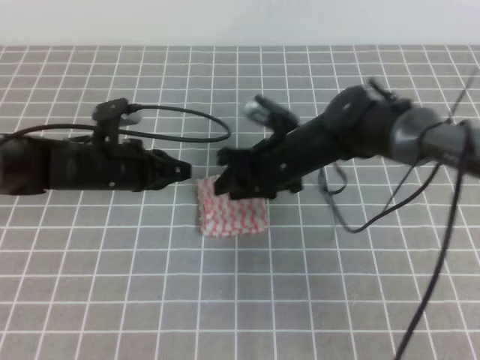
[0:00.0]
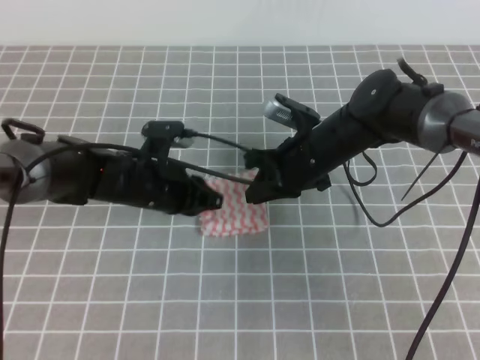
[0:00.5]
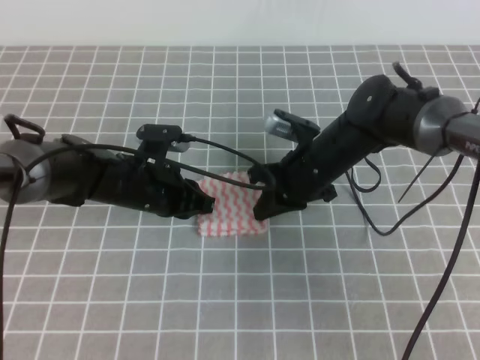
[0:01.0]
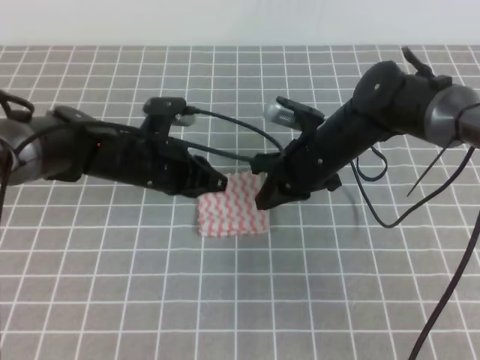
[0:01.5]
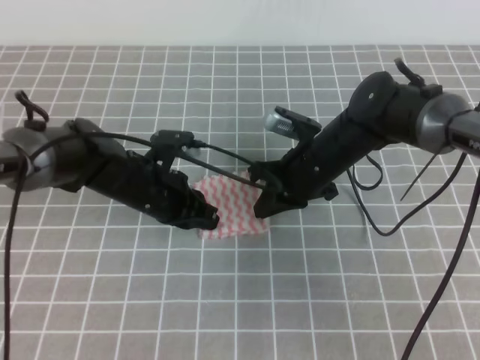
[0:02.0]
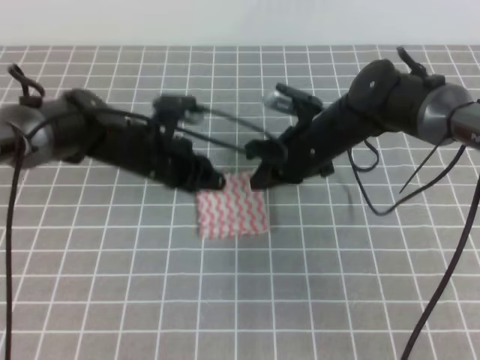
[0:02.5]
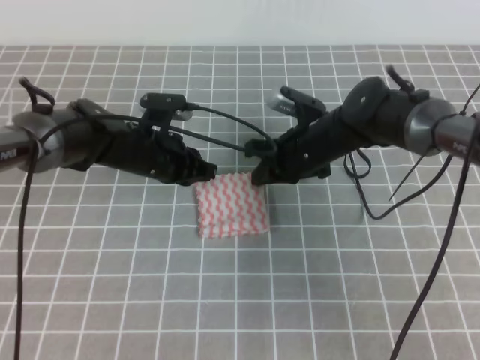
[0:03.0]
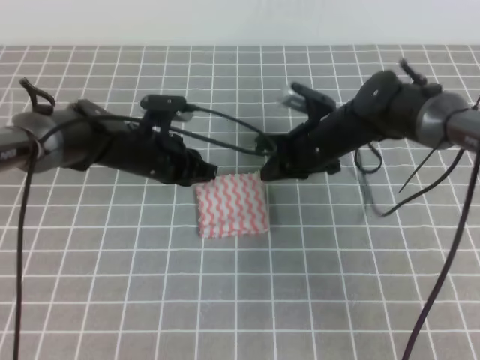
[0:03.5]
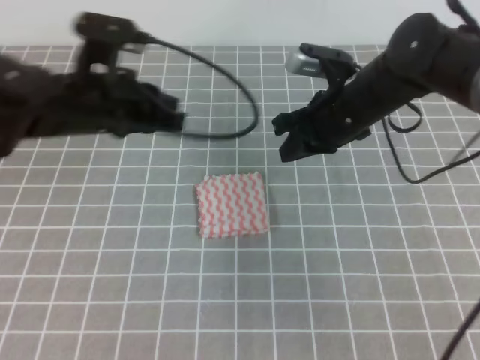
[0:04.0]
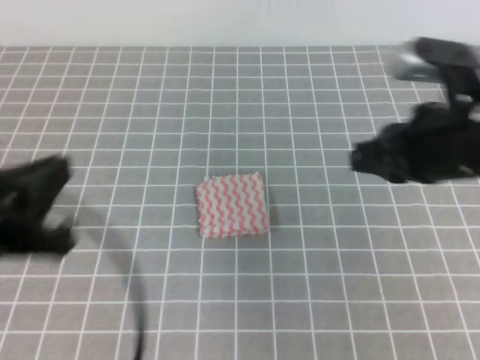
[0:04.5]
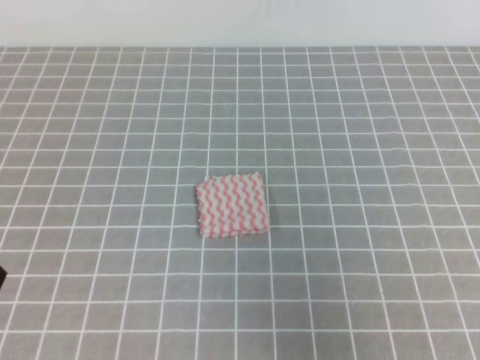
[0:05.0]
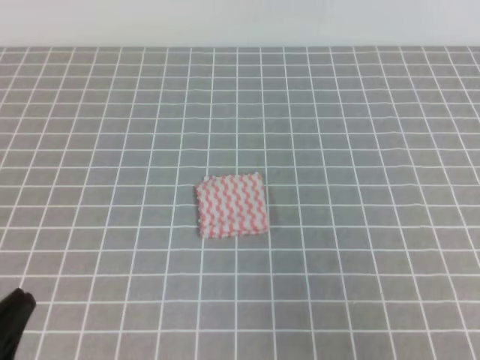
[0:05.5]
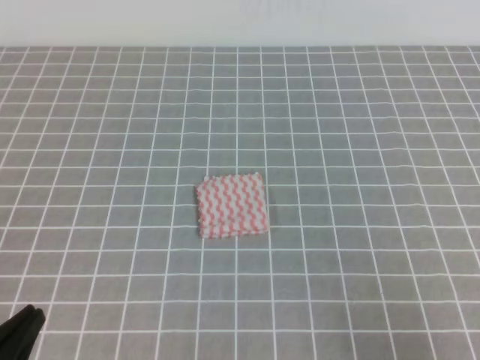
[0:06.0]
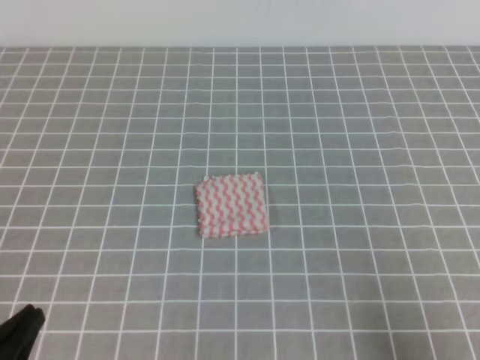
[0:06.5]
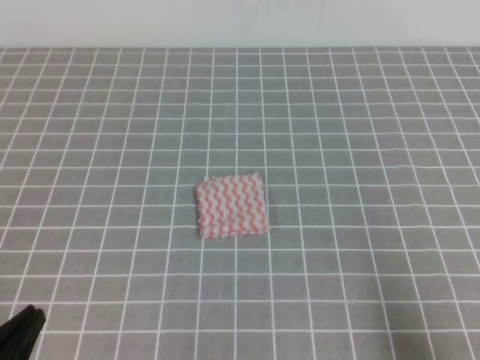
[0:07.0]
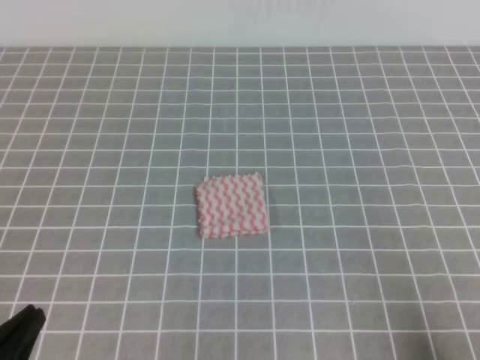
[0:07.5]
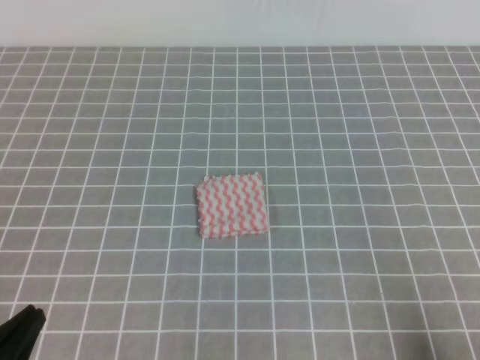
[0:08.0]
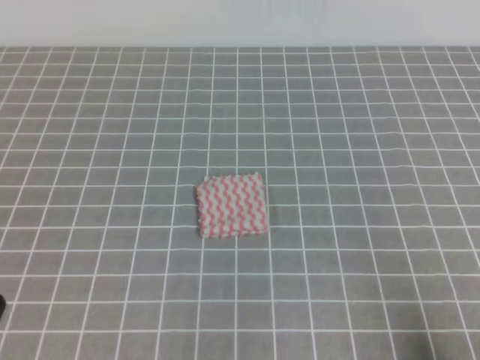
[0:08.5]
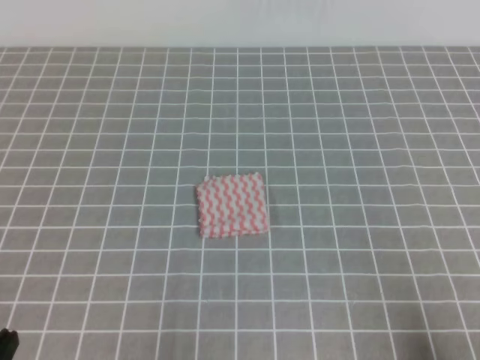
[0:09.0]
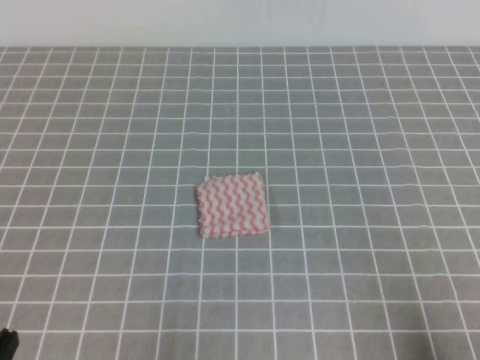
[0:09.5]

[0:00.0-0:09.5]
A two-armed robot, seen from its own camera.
Step, 0.0 to 9.5 s: Fold the towel.
0.0 to 2.0 s: The right gripper closes up. Meanwhile the left gripper changes place by approximately 5 cm.
2.0 to 4.0 s: The right gripper travels upward by roughly 10 cm. Meanwhile the left gripper travels upward by approximately 15 cm.
4.0 to 5.5 s: The right gripper heads backward and to the right, covering roughly 35 cm, while the left gripper is displaced backward by about 30 cm.
5.5 to 7.5 s: The right gripper heads downward, covering some 10 cm.

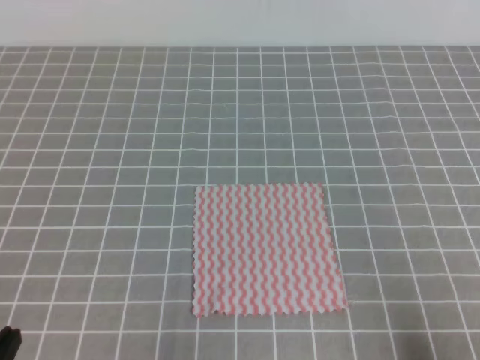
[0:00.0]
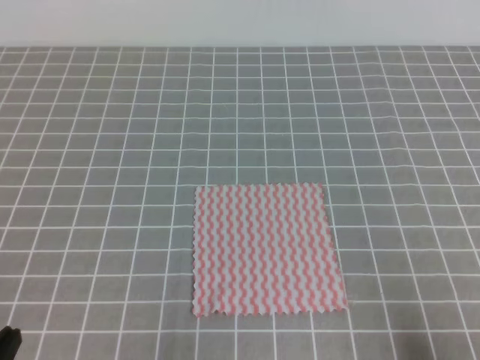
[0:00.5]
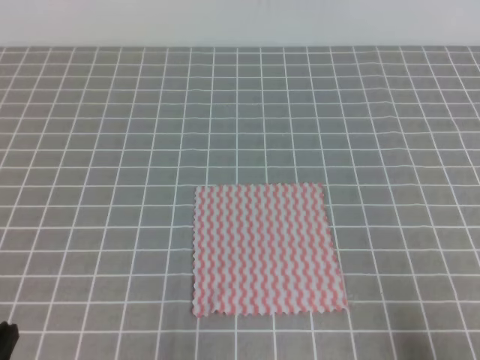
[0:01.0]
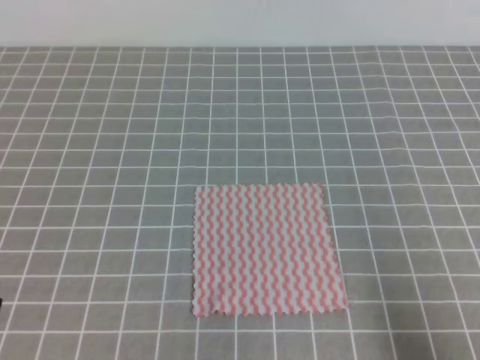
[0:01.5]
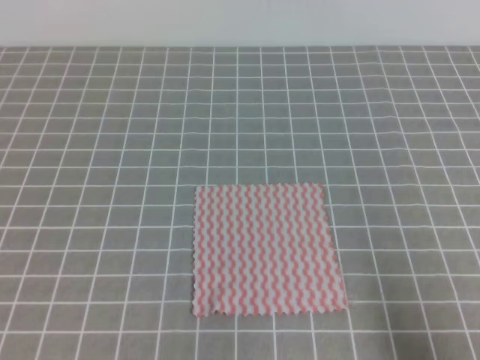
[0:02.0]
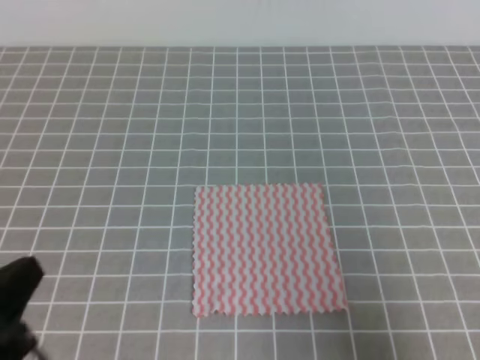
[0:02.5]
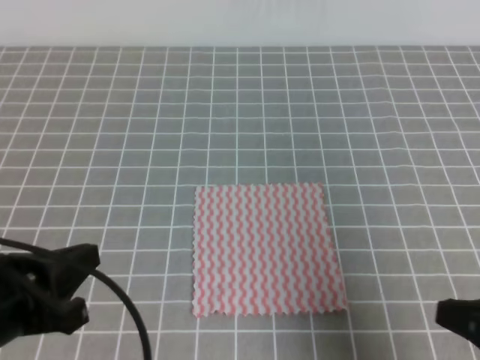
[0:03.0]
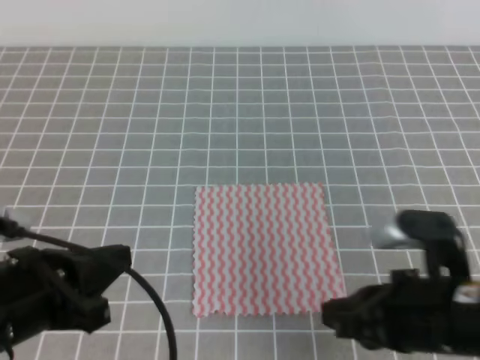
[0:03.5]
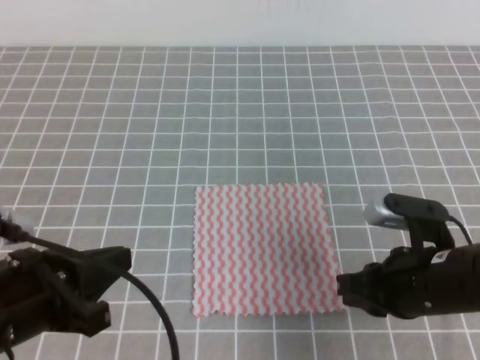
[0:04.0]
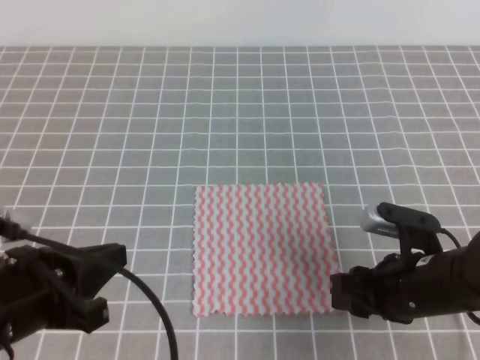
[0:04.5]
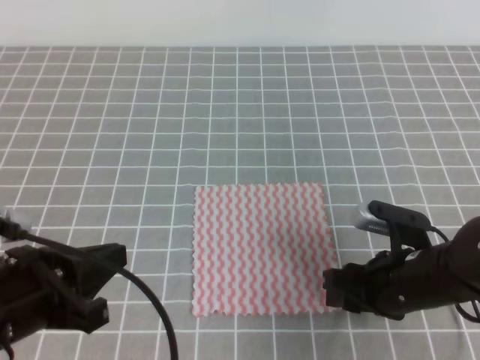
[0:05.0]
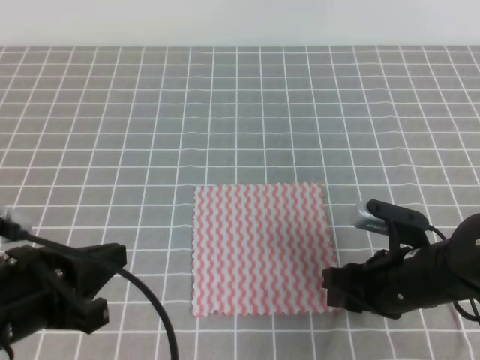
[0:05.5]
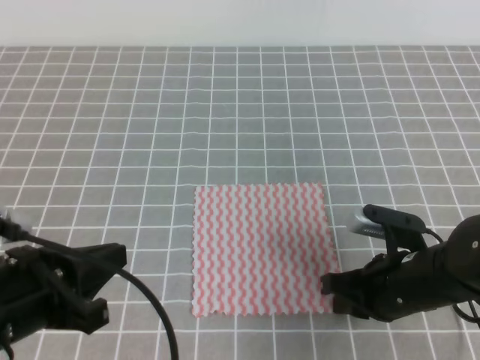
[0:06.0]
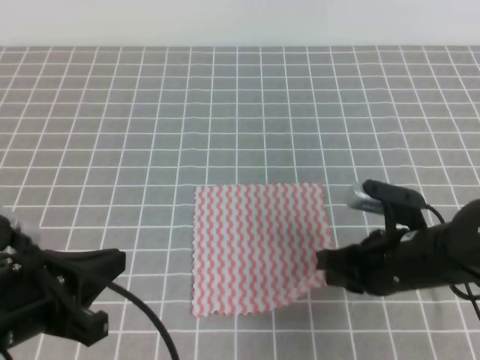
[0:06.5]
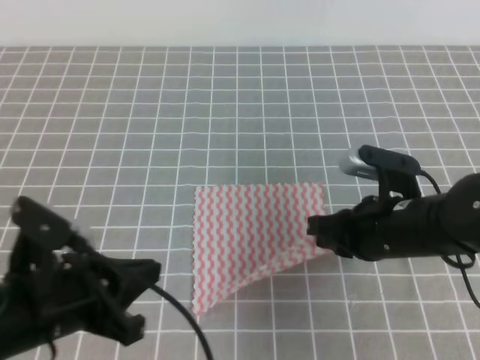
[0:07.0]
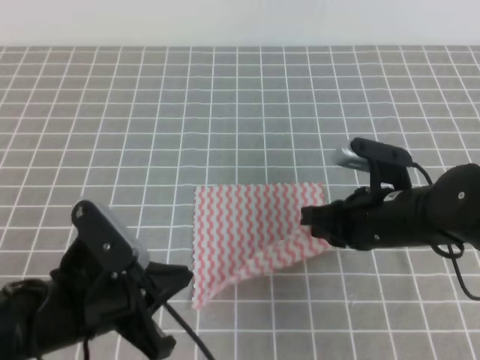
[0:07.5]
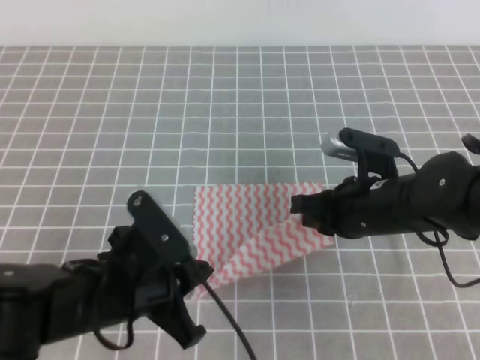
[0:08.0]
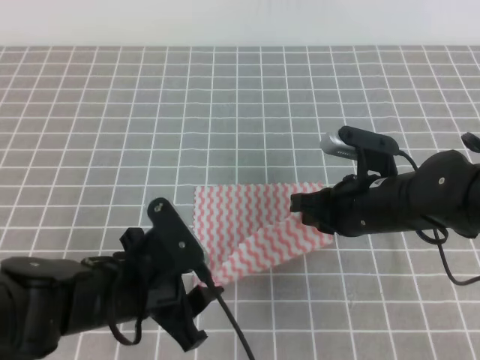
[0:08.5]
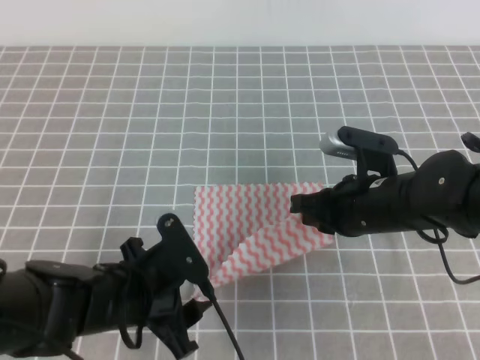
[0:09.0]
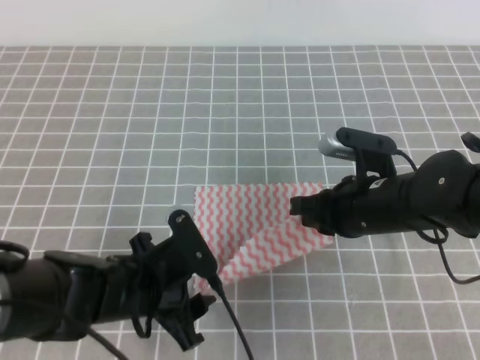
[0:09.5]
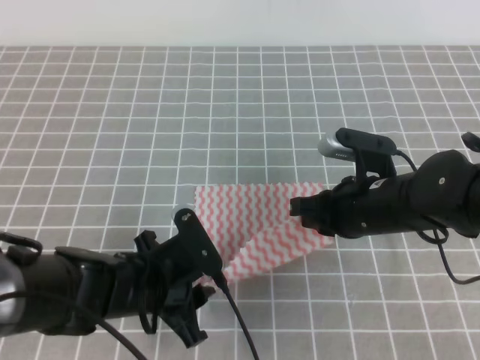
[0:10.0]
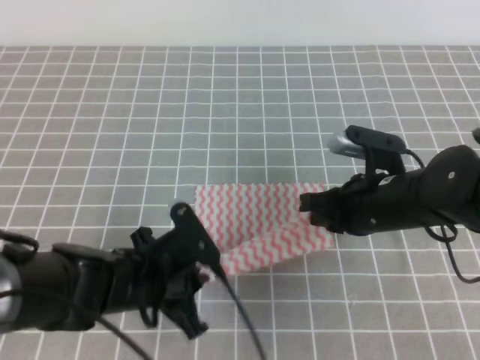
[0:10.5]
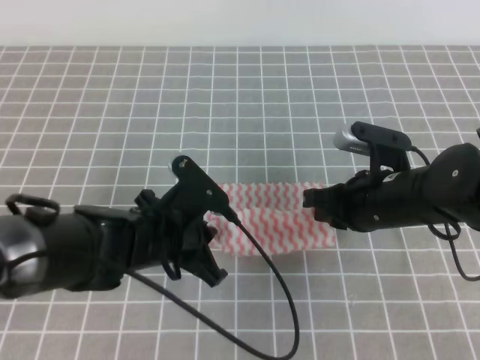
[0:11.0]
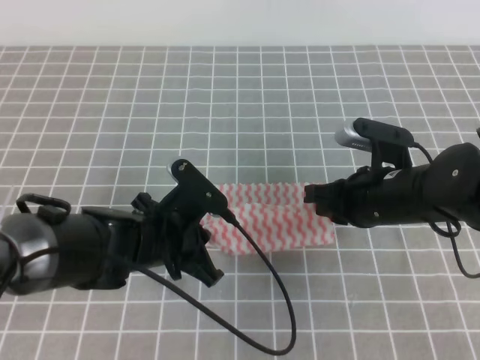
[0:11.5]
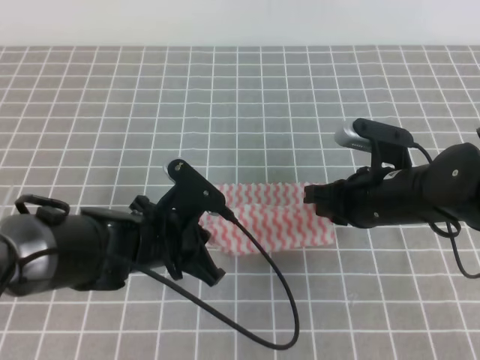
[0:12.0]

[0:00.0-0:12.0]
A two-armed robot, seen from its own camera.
2.0 to 4.0 s: The left gripper shifts roughly 10 cm forward and to the right; the right gripper goes approximately 20 cm forward and to the left.
4.0 to 6.0 s: The right gripper opens and closes again.
6.0 to 8.0 s: The left gripper is displaced to the right by roughly 10 cm, while the right gripper travels forward by some 5 cm.
8.0 to 10.0 s: The left gripper heads downward, covering roughly 5 cm, and opens up.
10.0 to 12.0 s: The left gripper moves about 5 cm, and closes its fingers.

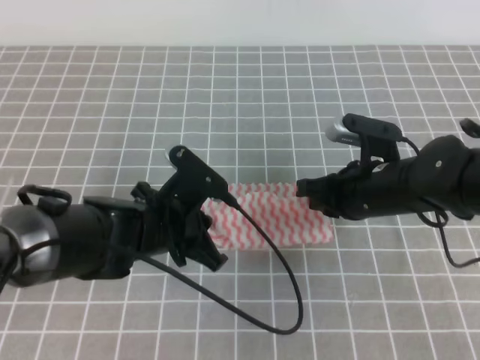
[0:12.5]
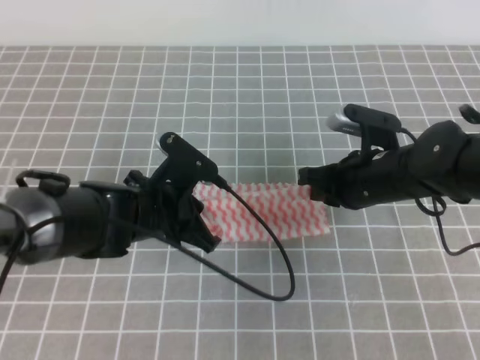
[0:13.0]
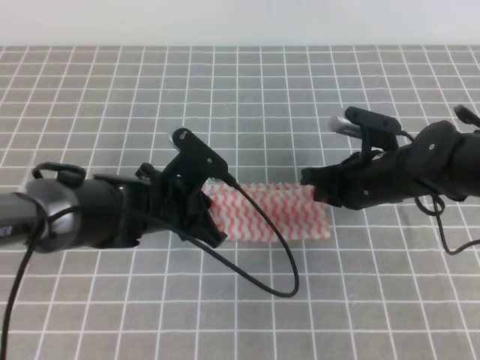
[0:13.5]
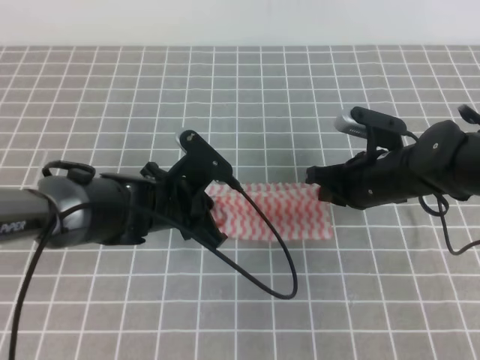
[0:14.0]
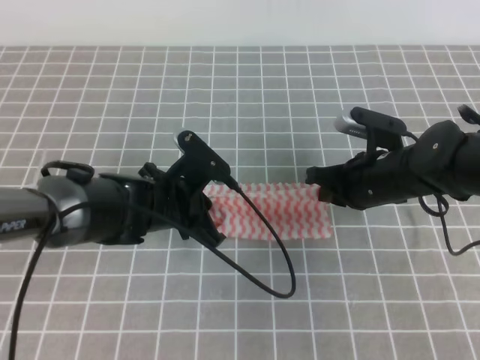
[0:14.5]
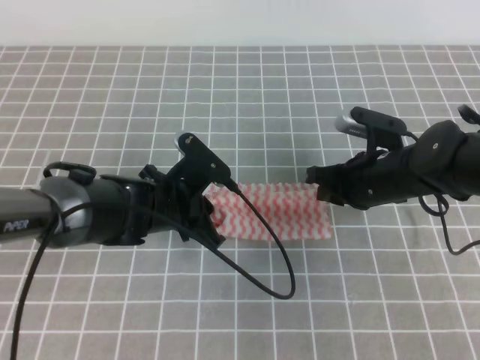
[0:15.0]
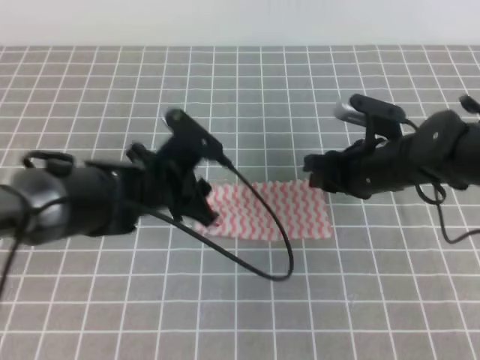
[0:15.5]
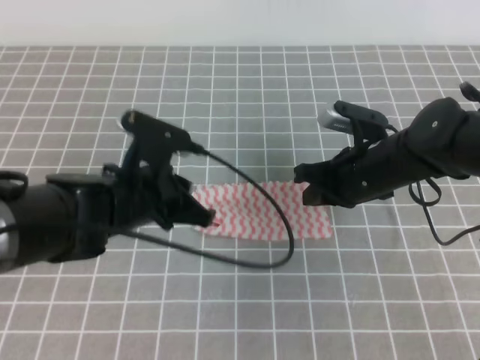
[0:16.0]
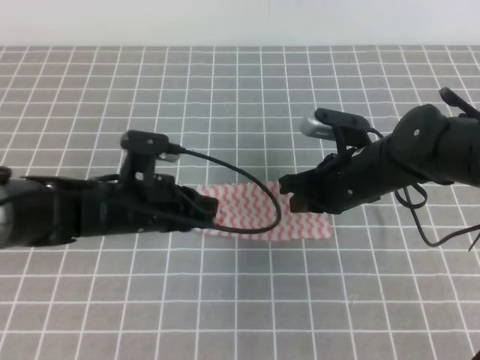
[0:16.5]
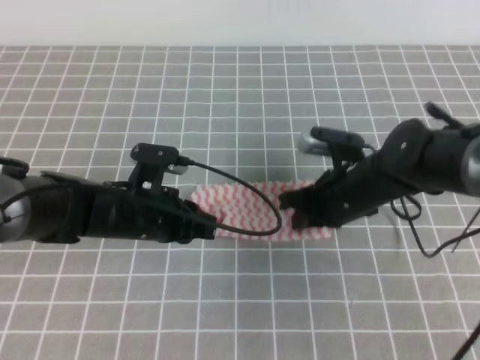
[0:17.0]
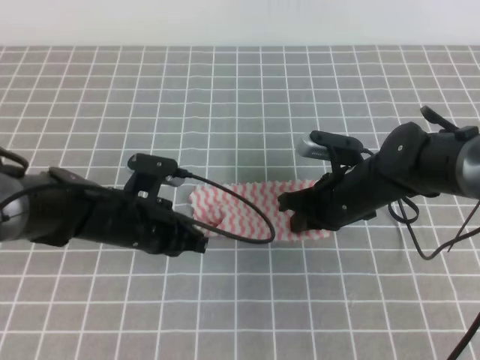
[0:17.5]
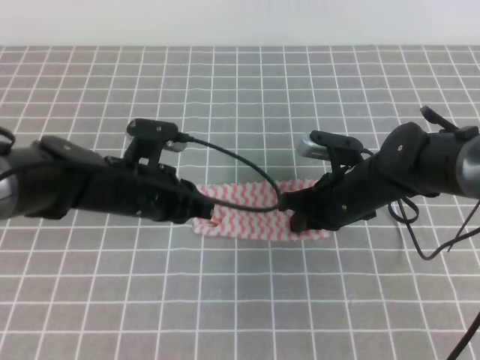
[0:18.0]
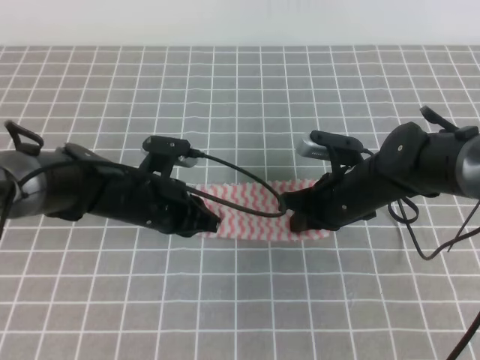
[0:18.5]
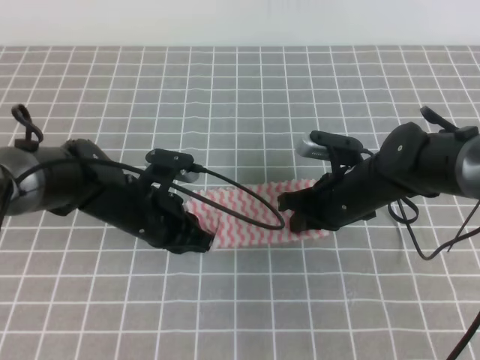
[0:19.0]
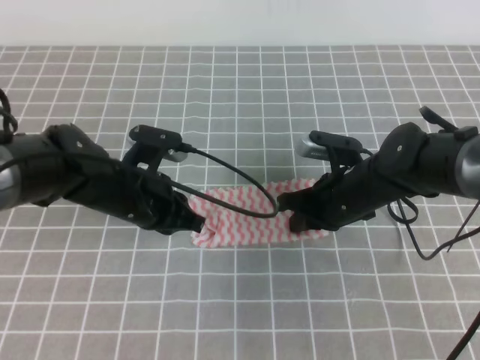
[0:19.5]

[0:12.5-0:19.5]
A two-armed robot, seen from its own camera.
12.5 to 14.5 s: The grippers make only small movements.
14.5 to 16.0 s: The right gripper opens, then closes once more, while the left gripper shifts roughly 5 cm upward, and opens, then closes once more.
16.0 to 17.5 s: The left gripper moves downward, roughly 5 cm.
17.5 to 19.5 s: The grippers move only a little.
